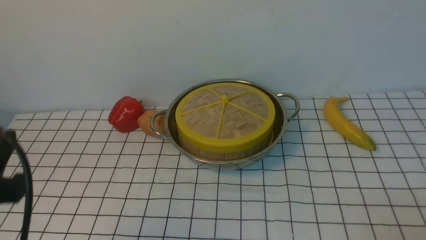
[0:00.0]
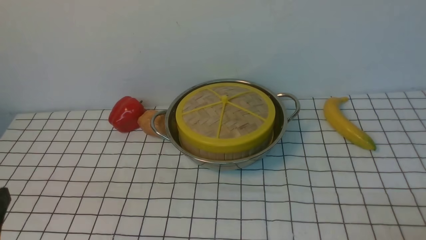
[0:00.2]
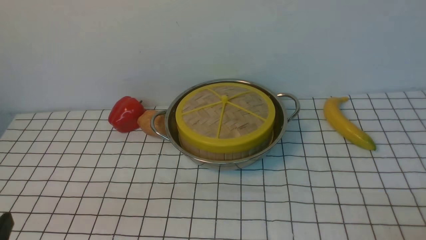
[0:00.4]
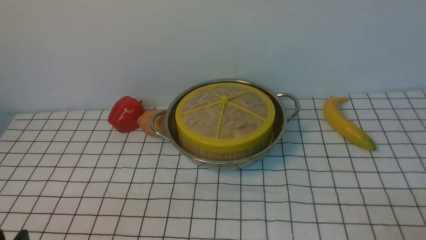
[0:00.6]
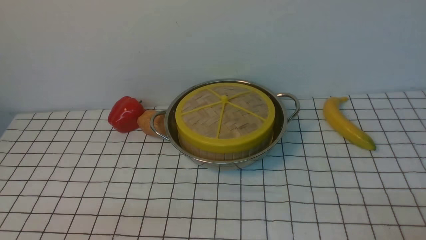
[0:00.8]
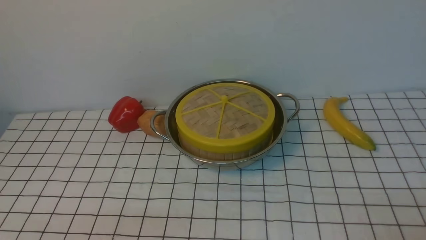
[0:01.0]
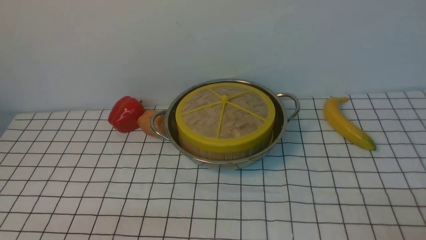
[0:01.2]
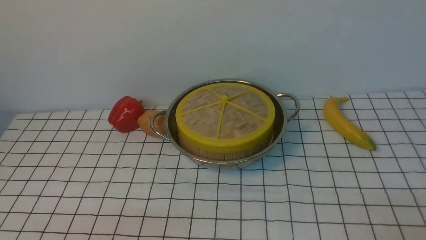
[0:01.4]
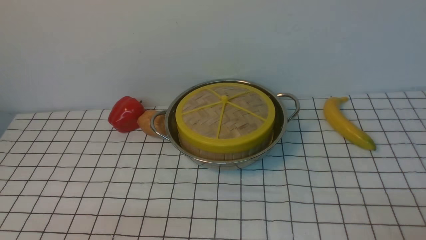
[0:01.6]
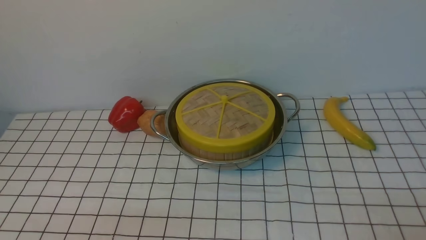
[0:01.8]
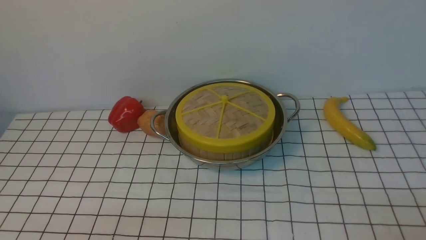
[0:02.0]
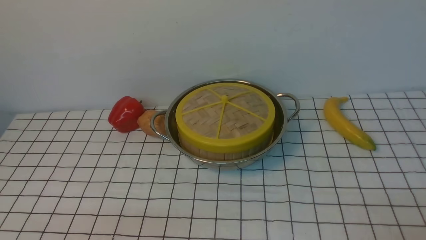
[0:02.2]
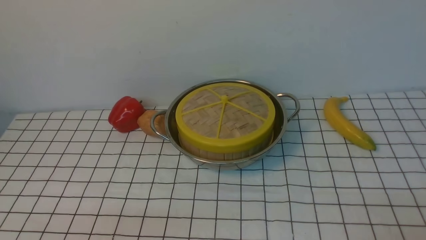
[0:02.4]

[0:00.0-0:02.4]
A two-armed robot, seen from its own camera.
Task of the whole recording: place the steamer in the pot on the white tablecloth, and put the lid on the steamer.
0:00.0 to 0:01.2: The left gripper is displaced downward and backward by about 25 cm.
0:01.2 to 0:02.4: The two grippers keep their place.

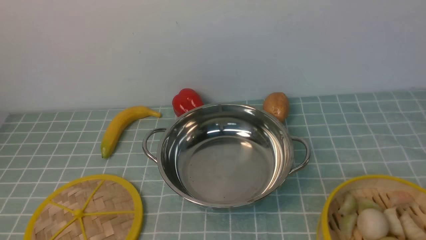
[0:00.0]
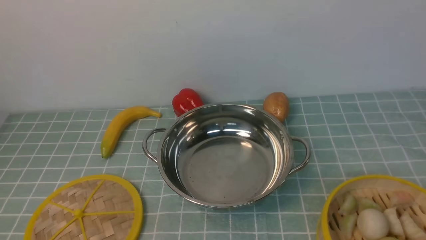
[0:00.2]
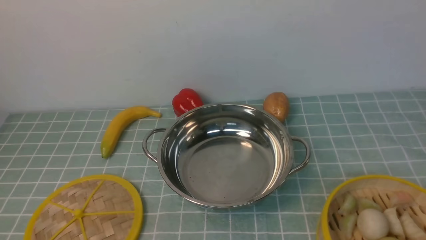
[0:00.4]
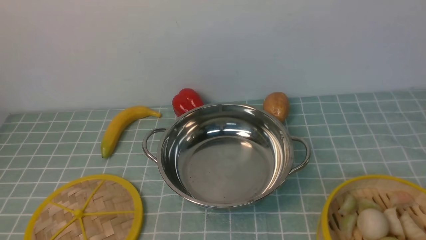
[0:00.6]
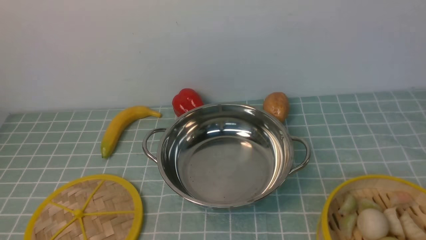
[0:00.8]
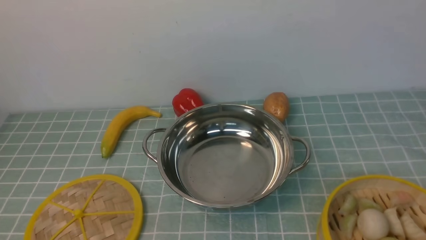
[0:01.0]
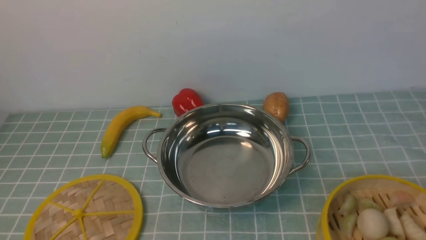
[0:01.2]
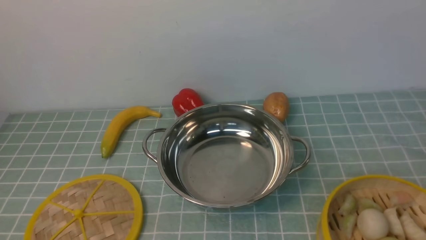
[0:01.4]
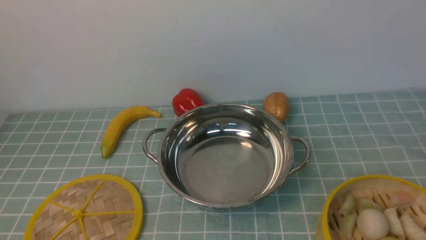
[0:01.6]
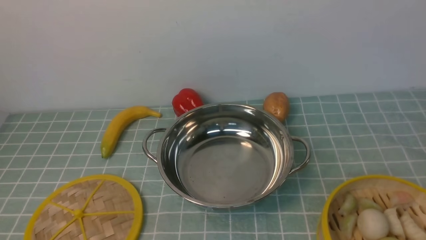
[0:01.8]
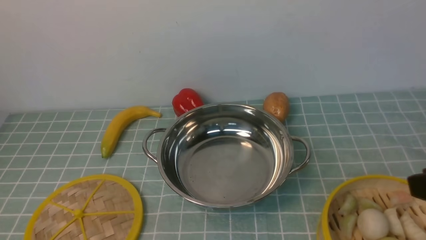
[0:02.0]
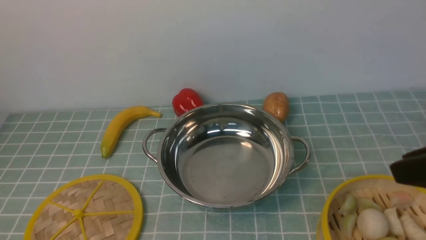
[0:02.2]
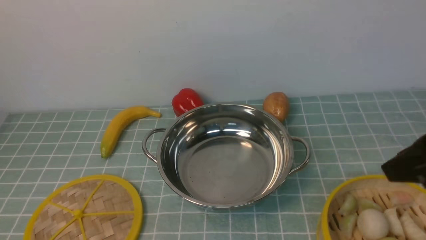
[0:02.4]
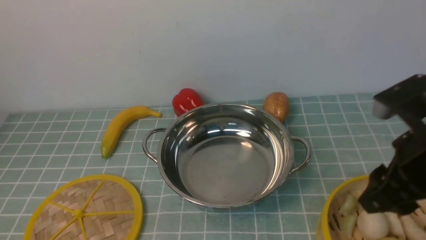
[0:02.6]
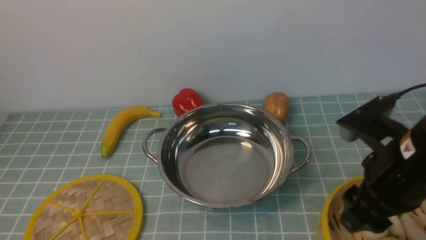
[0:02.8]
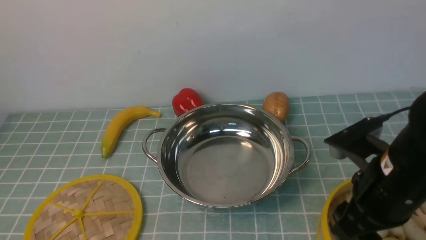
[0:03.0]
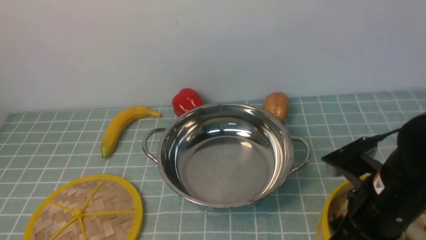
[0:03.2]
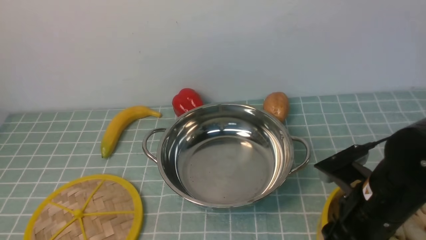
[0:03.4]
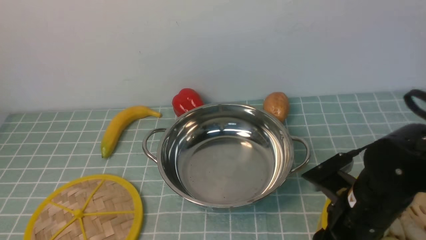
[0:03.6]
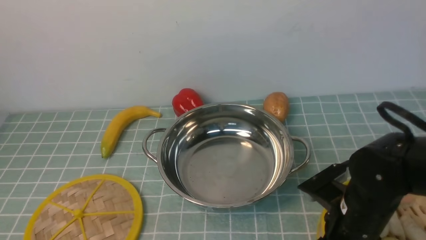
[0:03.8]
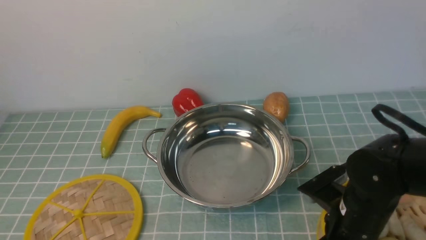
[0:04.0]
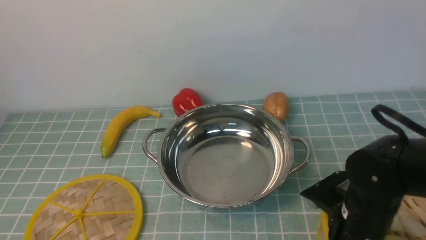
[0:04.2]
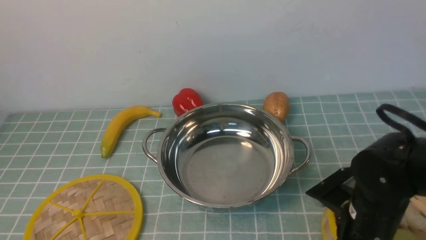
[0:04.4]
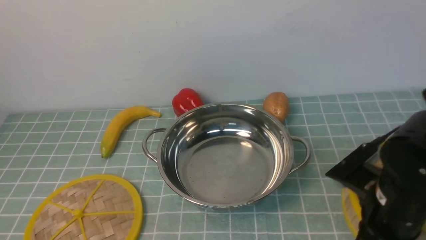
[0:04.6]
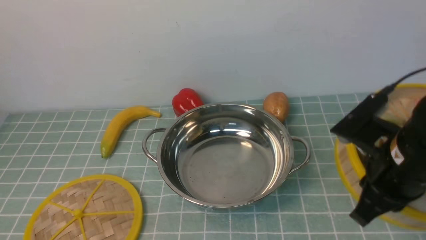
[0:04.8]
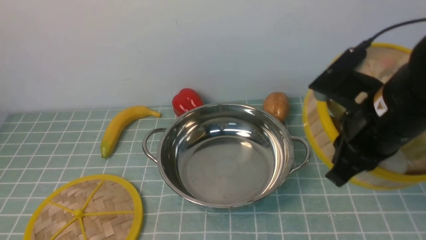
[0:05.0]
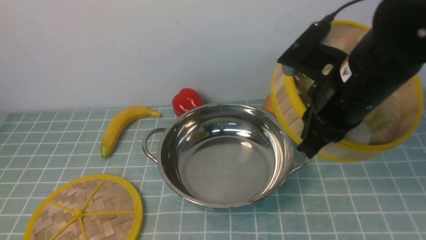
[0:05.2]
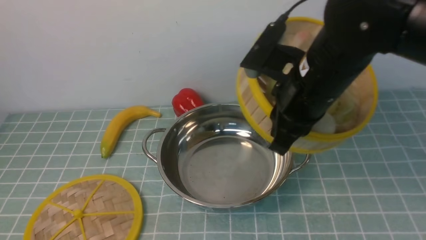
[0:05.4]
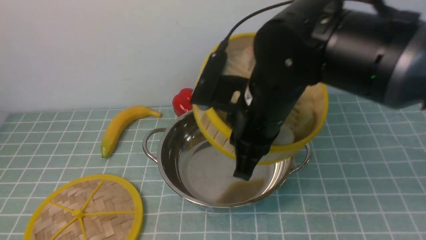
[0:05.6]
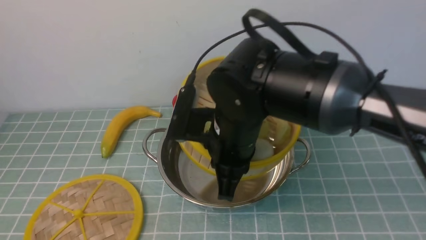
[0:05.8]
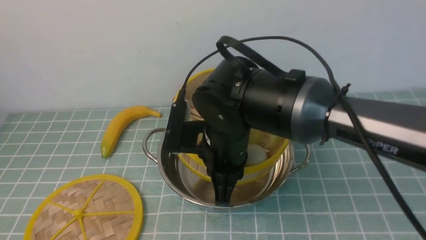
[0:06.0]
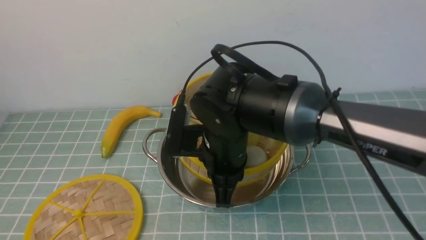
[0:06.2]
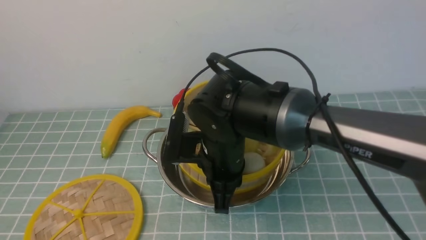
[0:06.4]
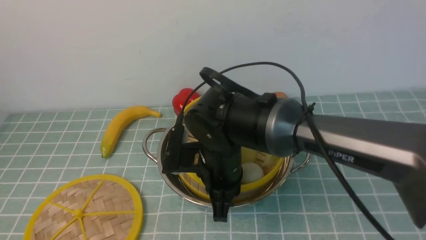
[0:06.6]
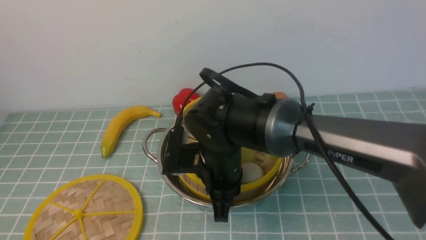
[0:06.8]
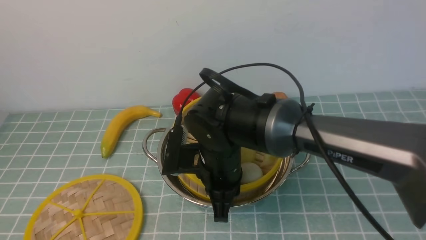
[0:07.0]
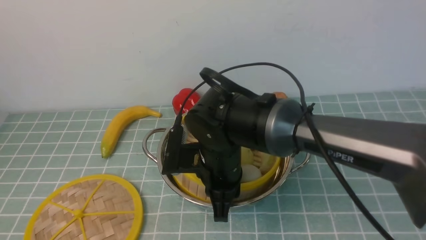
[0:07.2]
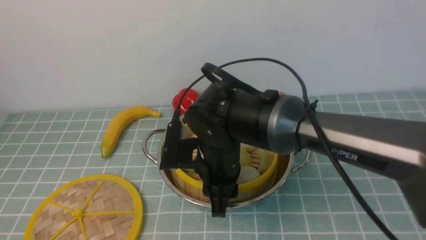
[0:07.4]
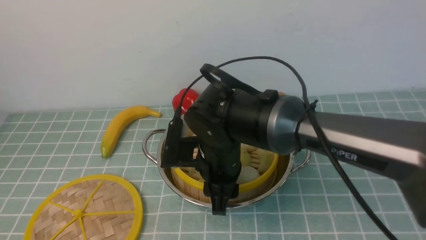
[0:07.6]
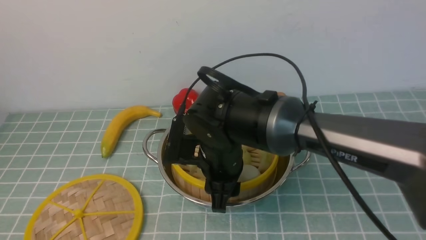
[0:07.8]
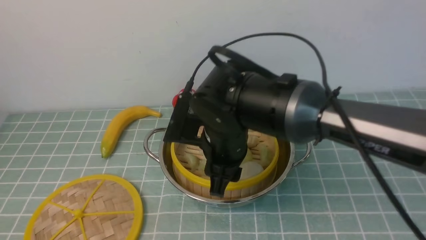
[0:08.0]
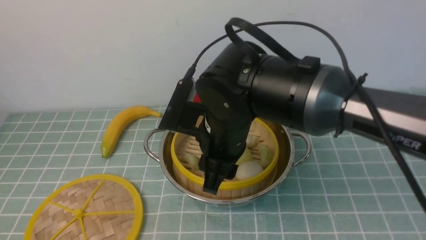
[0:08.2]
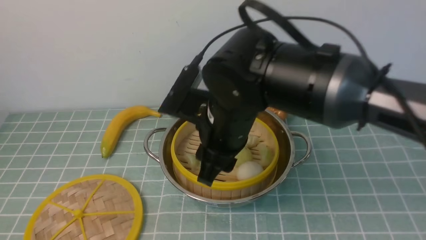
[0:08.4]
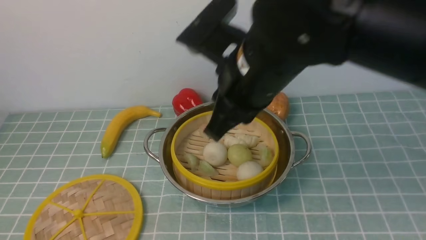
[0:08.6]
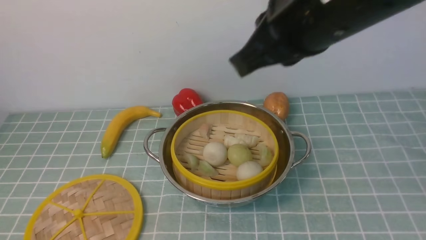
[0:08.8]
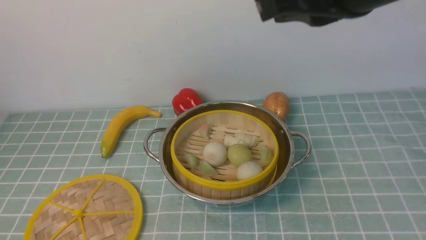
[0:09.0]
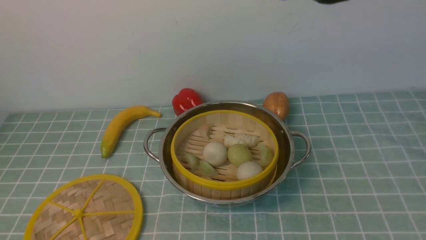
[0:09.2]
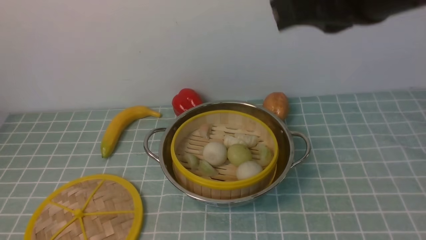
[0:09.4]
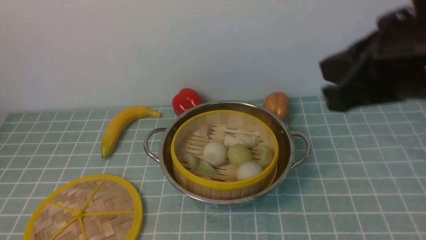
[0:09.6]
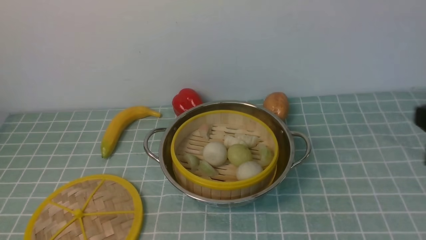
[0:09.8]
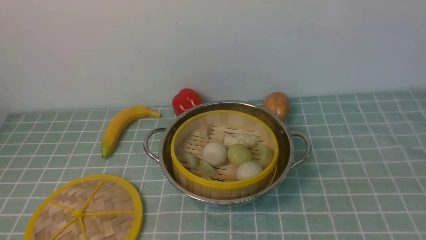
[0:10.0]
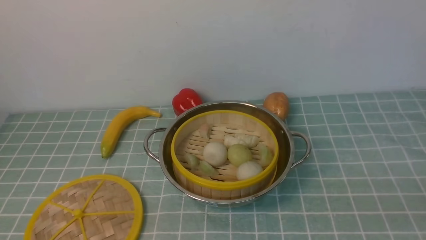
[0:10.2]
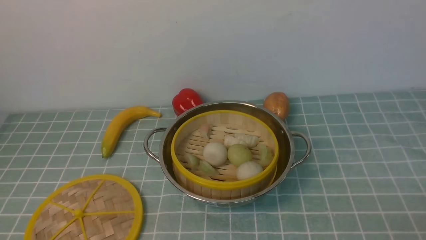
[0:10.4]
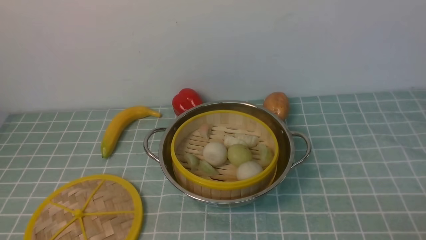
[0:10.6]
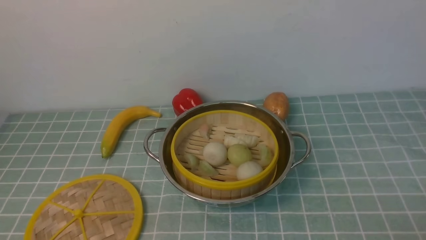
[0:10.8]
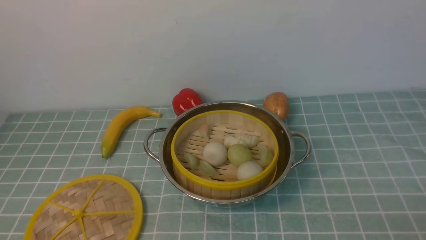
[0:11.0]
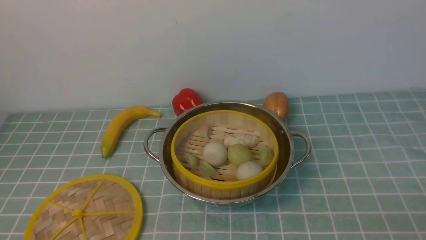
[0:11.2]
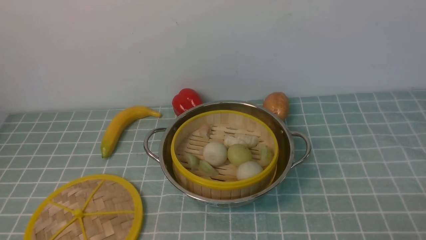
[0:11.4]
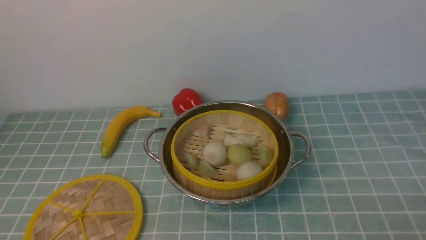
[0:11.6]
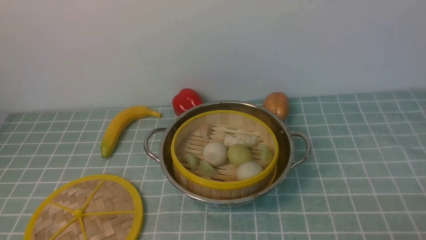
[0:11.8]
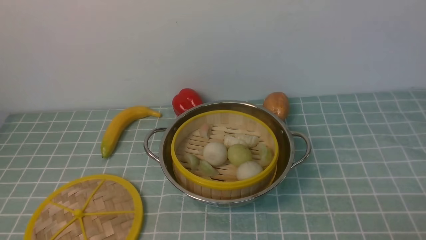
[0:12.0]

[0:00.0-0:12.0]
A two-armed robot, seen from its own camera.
Task of the whole recording: place the steamer in the pot on the blue tablecloth, and put the lid on the steamer.
Step, 0:00.0 to 0:04.8: use the right arm to lift the steamer closest to it.
Step, 0:05.0 to 0:08.6: use the right arm to put the steamer into the iron steamer pot in the middle.
0:01.6 to 0:03.0: The right gripper goes approximately 20 cm forward, to the left and downward, and opens its fingers.
0:03.0 to 0:04.4: The right gripper goes approximately 5 cm downward, and closes its fingers.
0:04.4 to 0:06.0: The right gripper shifts roughly 20 cm to the left and forward.
0:06.0 to 0:07.6: The right gripper opens up.
0:07.6 to 0:09.0: The right gripper heads upward and to the right, covering about 30 cm, and closes up.
0:09.0 to 0:10.4: The right gripper is displaced downward, to the right and backward by some 40 cm.

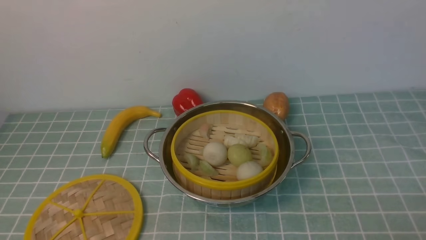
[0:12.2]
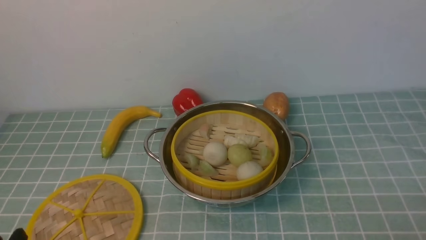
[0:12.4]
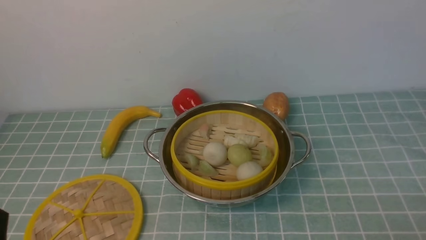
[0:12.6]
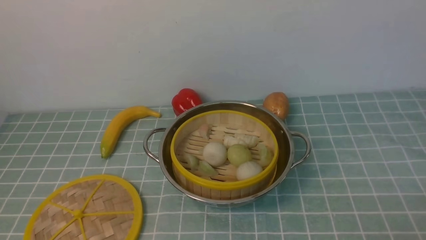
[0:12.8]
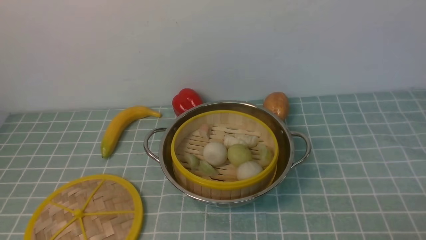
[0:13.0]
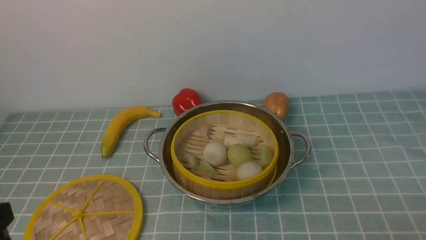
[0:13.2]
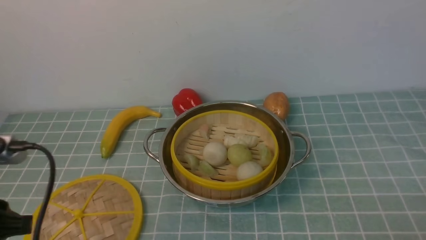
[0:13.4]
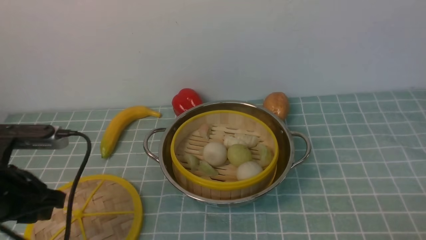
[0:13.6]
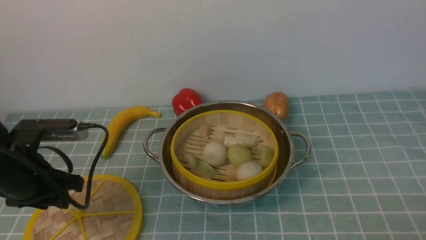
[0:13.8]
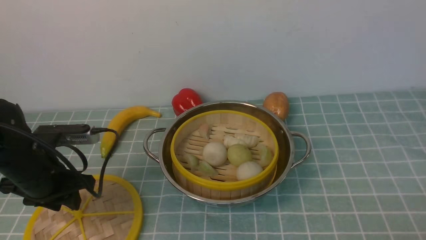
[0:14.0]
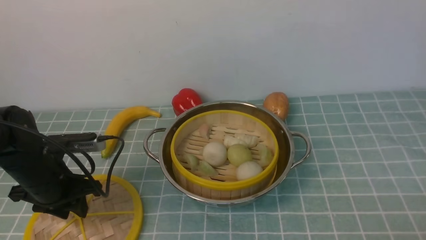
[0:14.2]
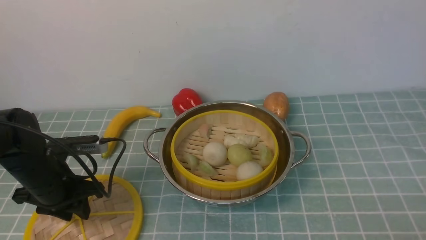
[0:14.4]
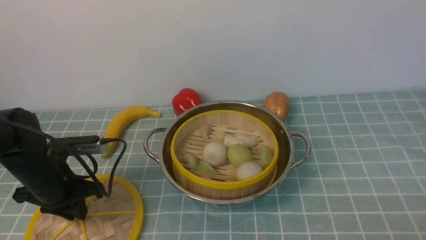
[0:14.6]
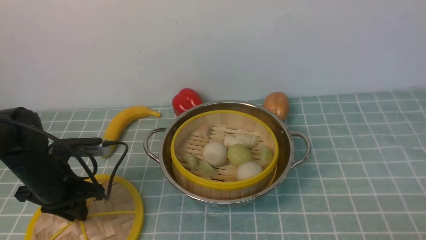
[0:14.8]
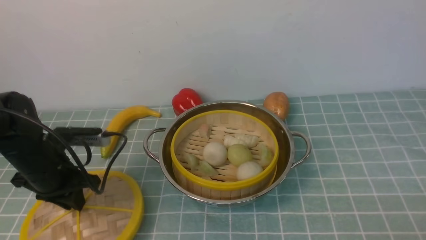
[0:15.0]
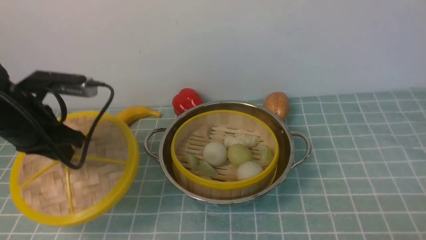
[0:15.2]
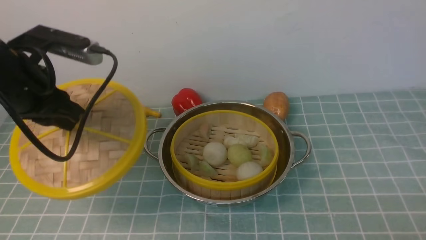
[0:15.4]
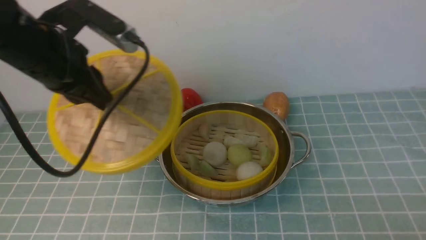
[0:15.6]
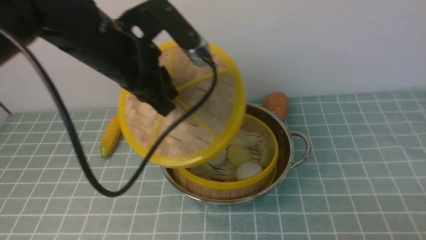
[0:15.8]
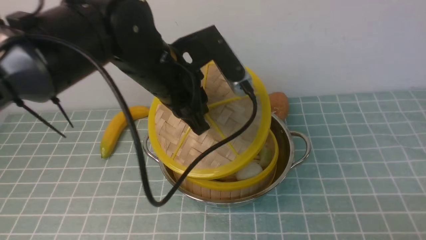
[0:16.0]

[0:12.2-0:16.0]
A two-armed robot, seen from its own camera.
Task of the whole recording: place the steamer in the pot on the blue tablecloth, and put the lid on the steamer.
Step, 0:12.2 to 0:15.4: use the left arm to lift the lid of the steamer.
0:12.2 to 0:13.4: The left gripper is displaced upward and forward by approximately 15 cm.
0:13.4 to 0:14.8: The left gripper is displaced forward and downward by roughly 20 cm, and closes up.
0:14.8 to 0:16.0: The left gripper heads to the right and upward, covering roughly 25 cm.
